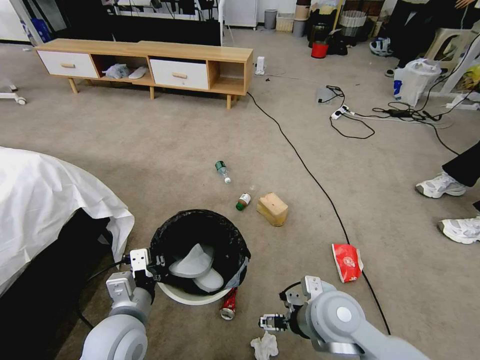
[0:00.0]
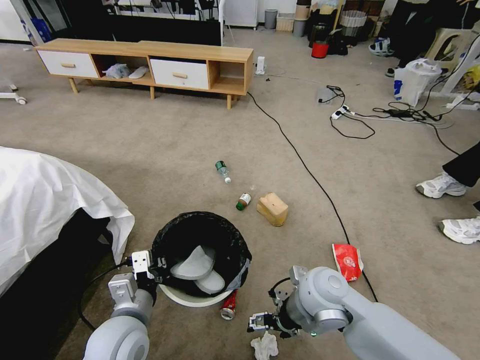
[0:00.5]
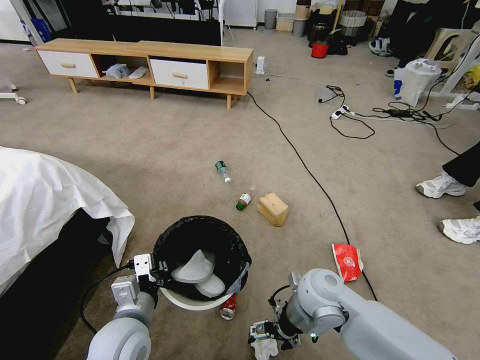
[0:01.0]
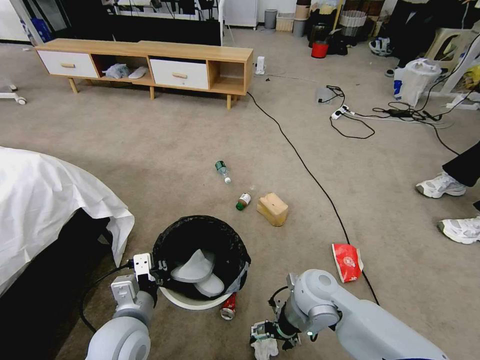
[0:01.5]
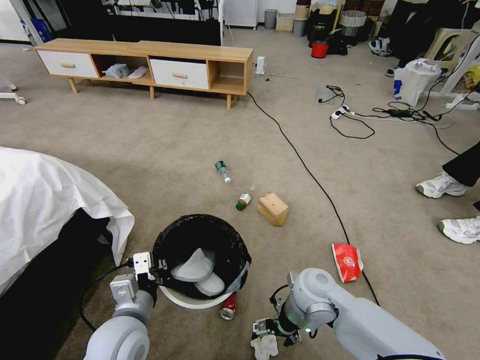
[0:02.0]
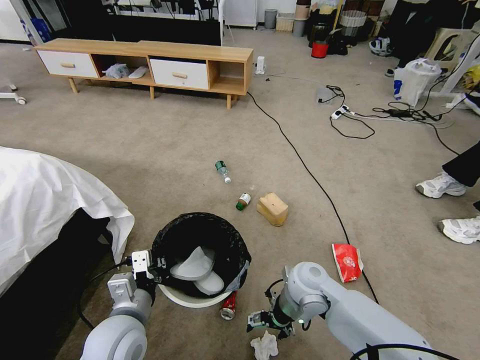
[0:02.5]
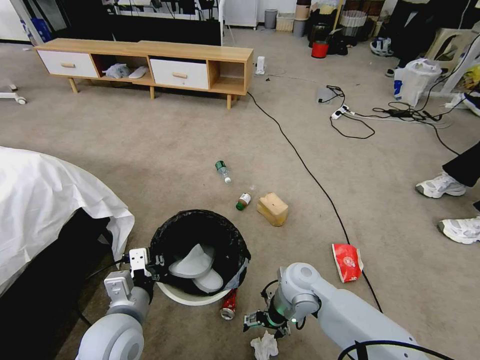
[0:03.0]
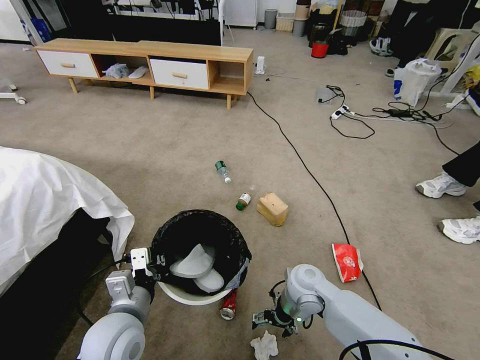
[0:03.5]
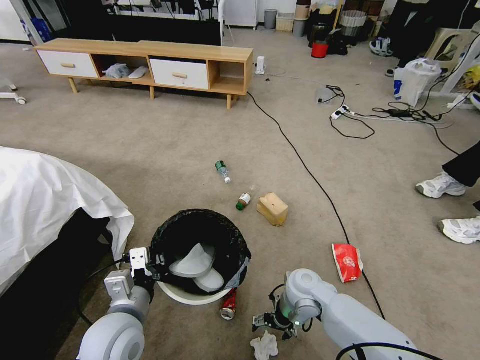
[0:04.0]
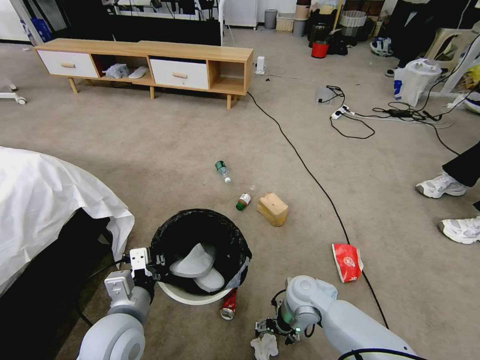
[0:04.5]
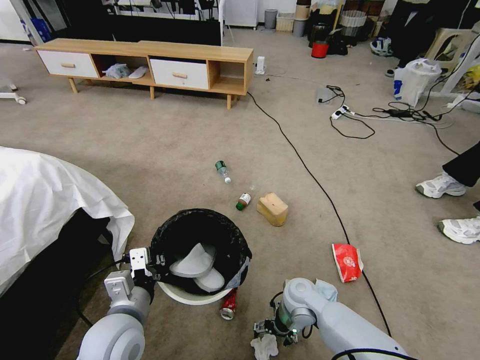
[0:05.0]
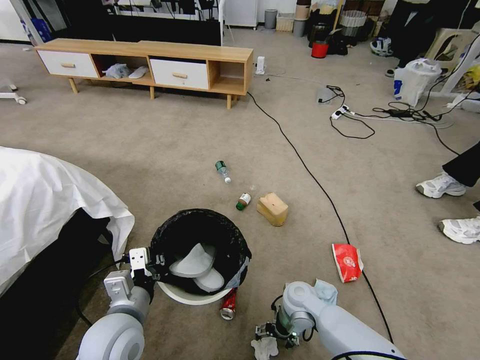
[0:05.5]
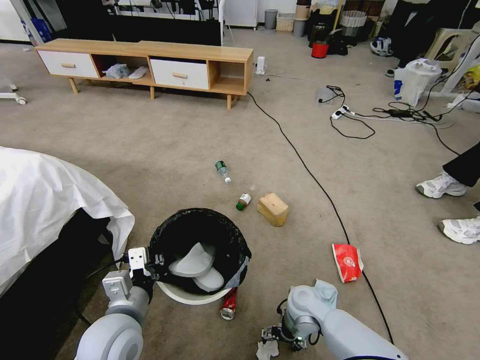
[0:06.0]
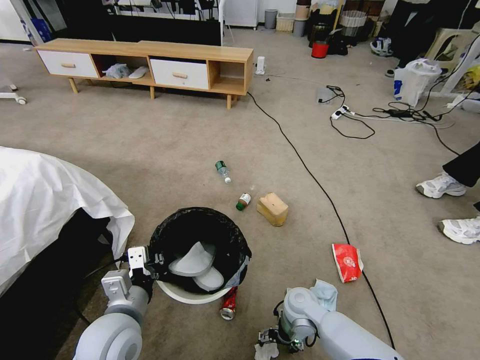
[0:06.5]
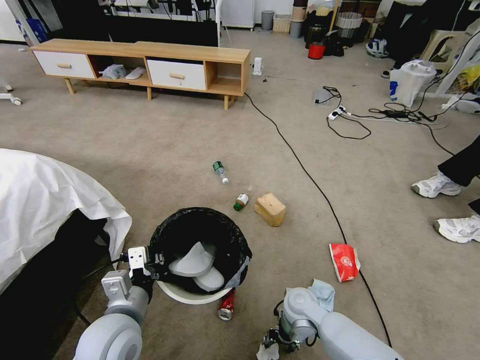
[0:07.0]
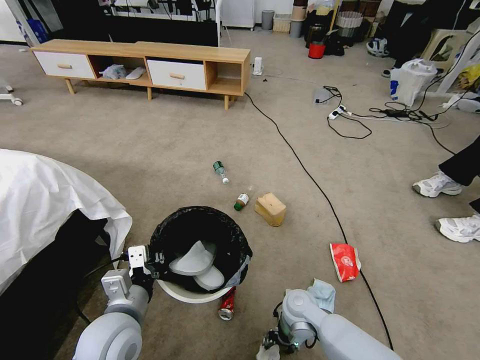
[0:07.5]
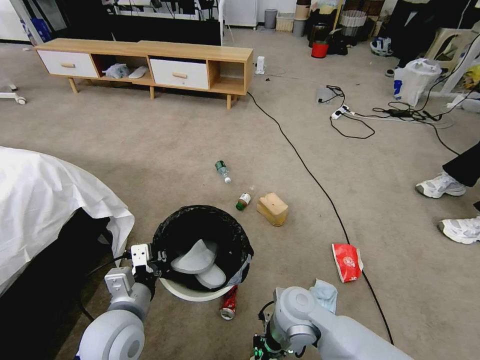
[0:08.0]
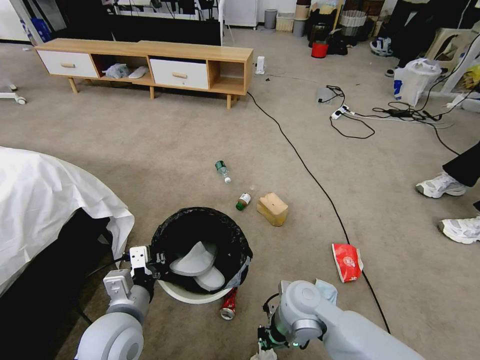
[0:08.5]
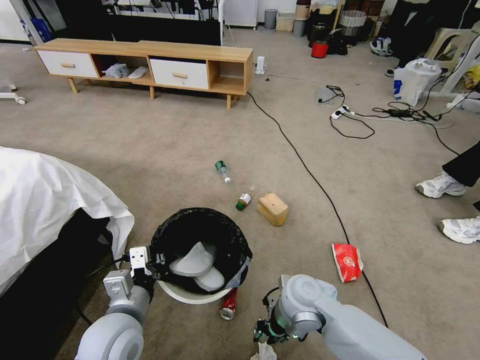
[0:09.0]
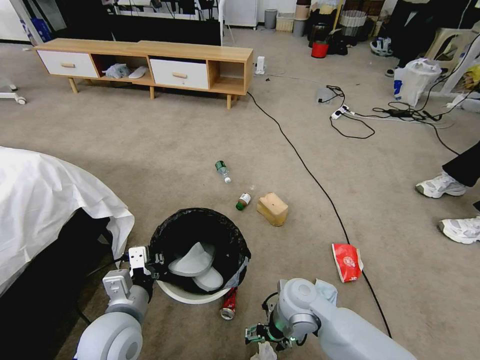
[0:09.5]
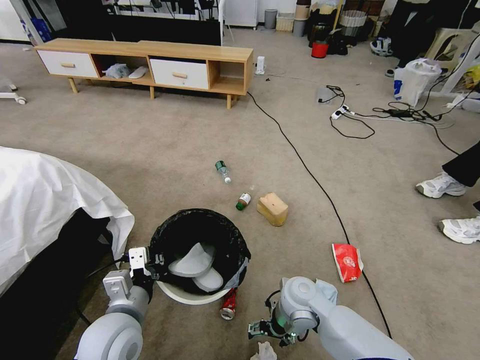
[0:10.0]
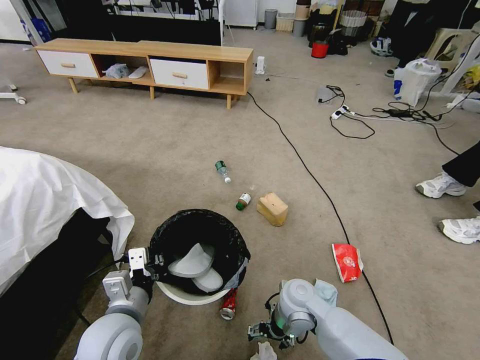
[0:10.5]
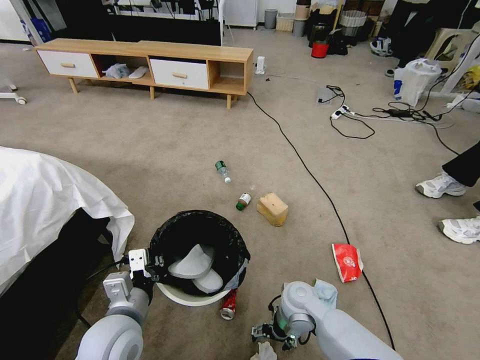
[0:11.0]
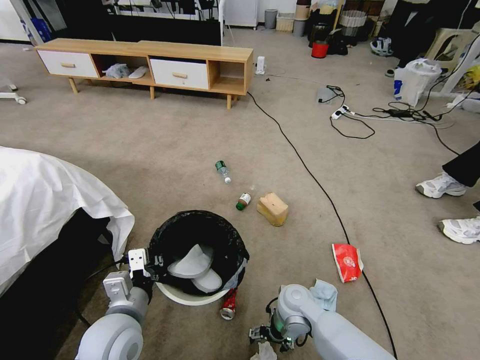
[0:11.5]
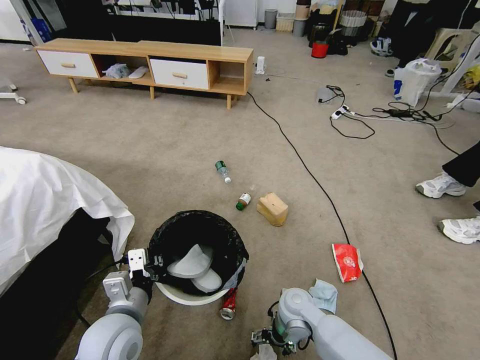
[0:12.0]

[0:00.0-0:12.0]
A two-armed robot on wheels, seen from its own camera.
Task of the whole recording: Pick up the trash bin and place the garbage on the floor into it.
0:00.0 to 0:02.0: The right gripper is displaced forward by some 5 cm.
0:02.0 to 0:04.0: The right gripper is displaced downward by about 5 cm.
0:04.0 to 0:06.0: The right gripper travels downward by about 5 cm.
0:06.0 to 0:08.0: The right gripper moves upward and to the left, roughly 10 cm, and closes its fingers.
0:08.0 to 0:10.0: The right gripper opens its fingers.
0:10.0 to 0:12.0: The right gripper heads downward, covering roughly 5 cm.

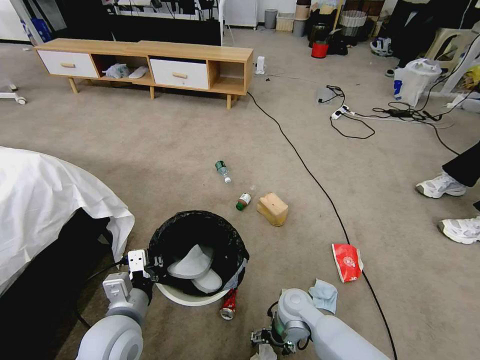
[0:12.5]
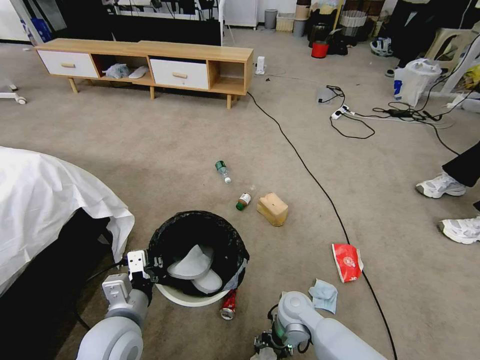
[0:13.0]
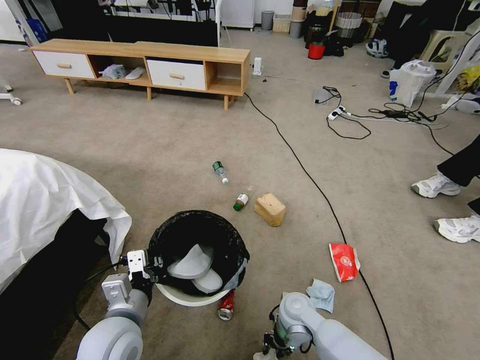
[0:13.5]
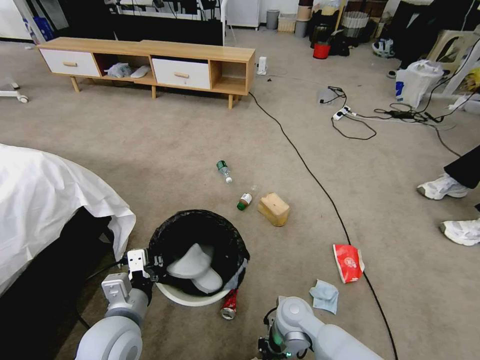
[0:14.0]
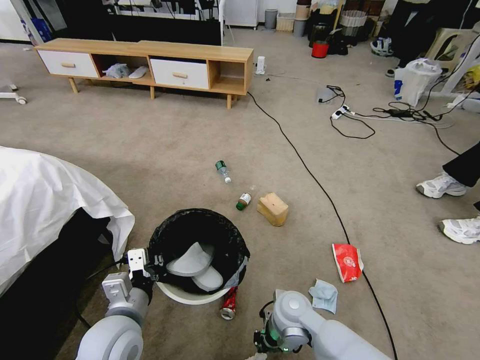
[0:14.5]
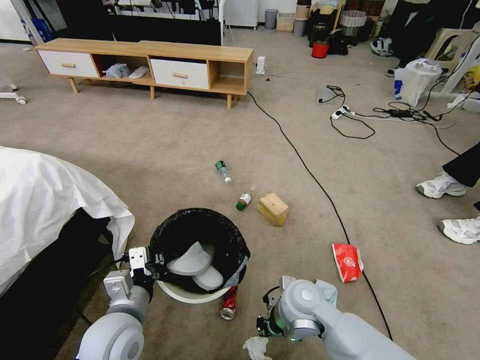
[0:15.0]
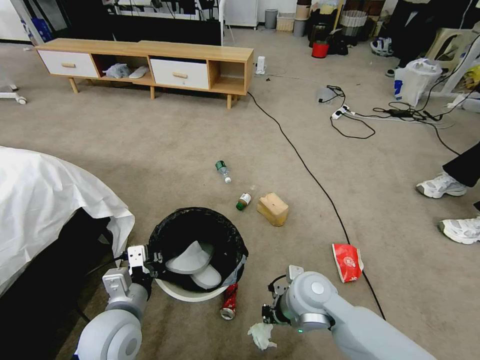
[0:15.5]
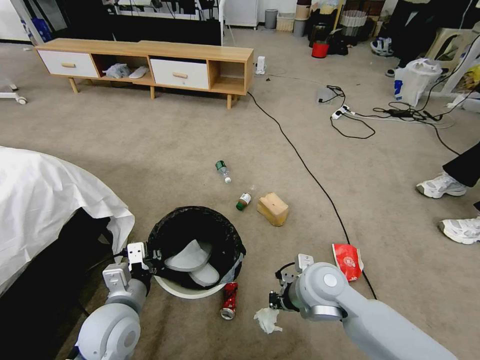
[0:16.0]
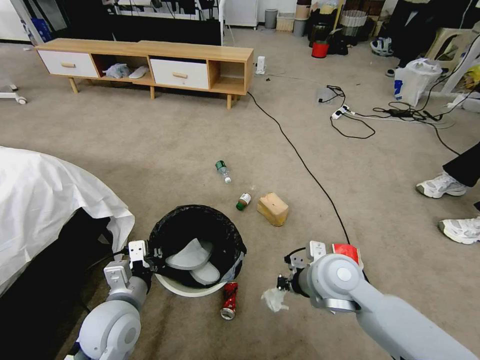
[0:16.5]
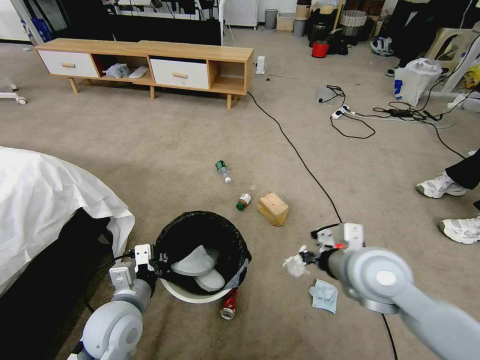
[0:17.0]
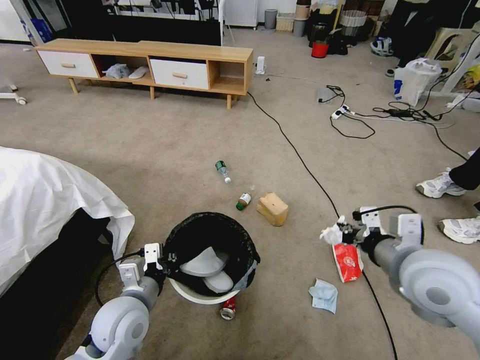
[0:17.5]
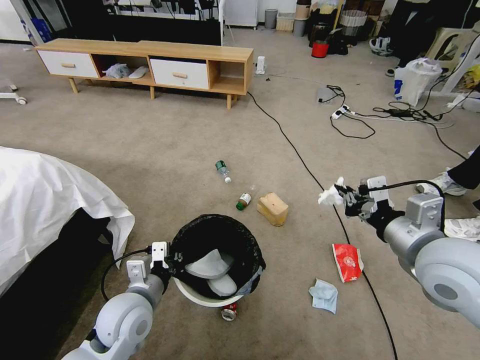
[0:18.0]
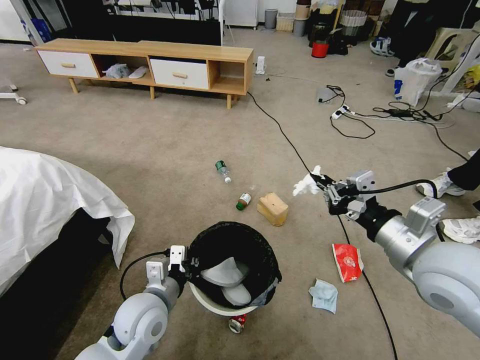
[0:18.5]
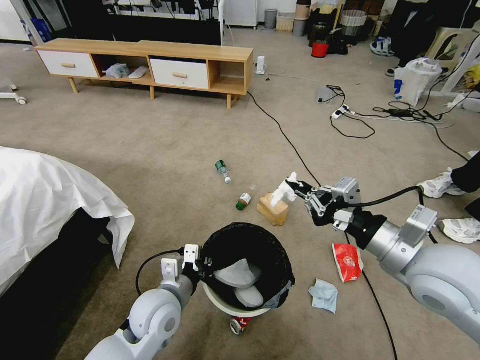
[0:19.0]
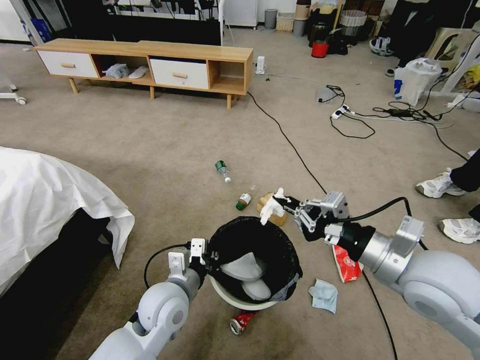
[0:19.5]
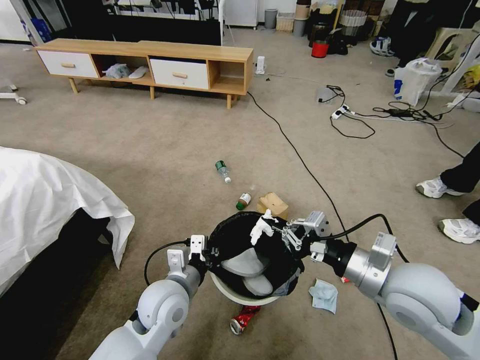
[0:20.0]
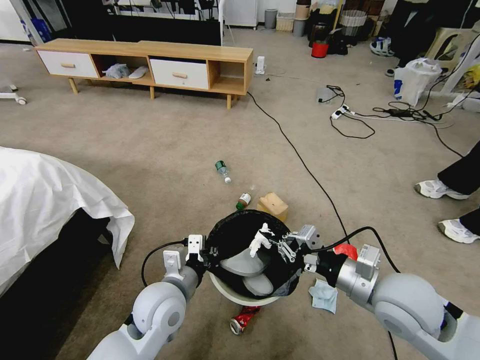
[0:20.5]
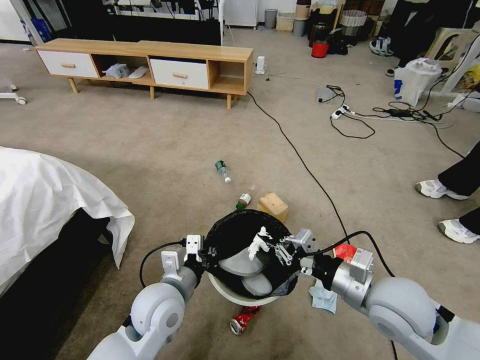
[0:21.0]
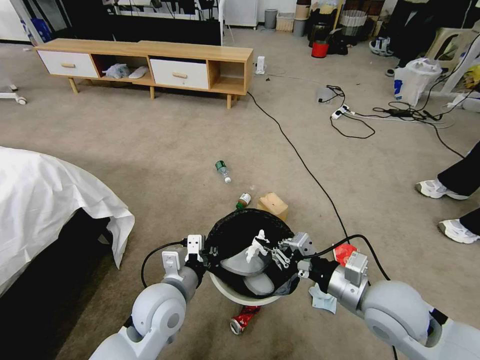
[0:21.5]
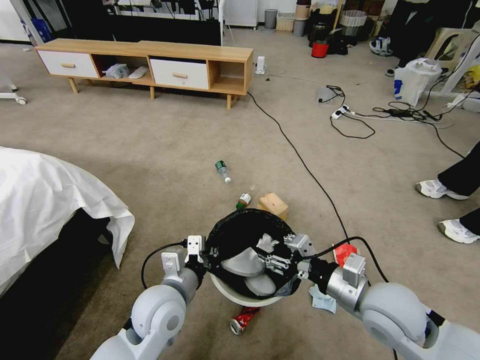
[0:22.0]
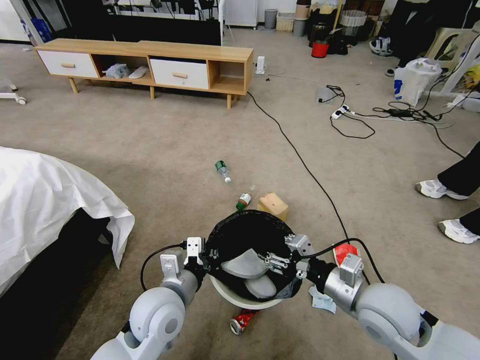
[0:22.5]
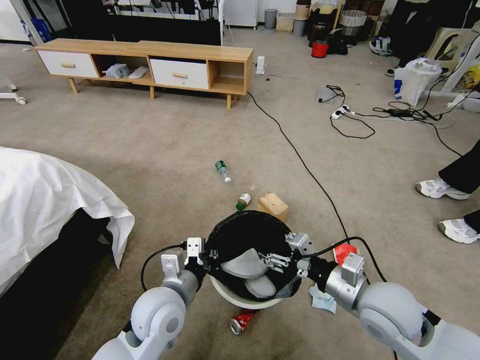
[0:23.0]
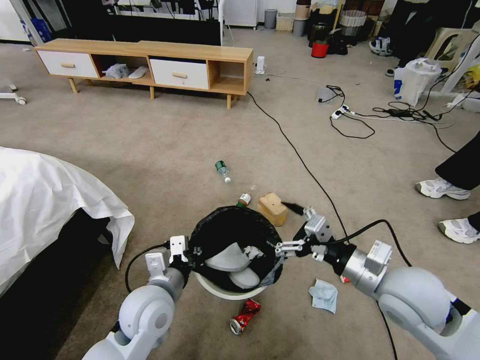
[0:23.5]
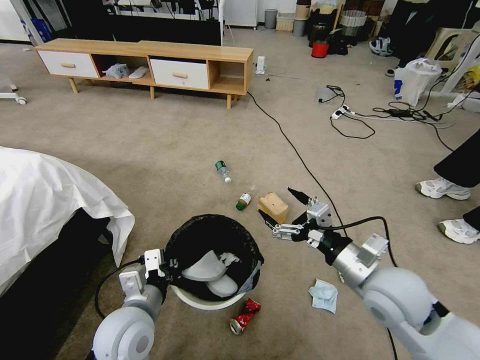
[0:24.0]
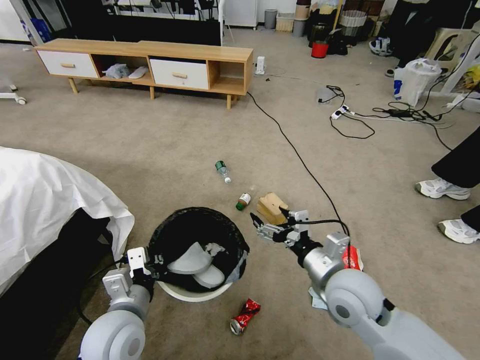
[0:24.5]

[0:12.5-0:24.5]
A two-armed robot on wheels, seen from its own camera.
Task of the whole recording: Pick up the trash bin and place the garbage on the floor into it.
0:12.5 to 0:14.5: The right gripper shifts by some 5 cm, and closes its fingers.
0:14.5 to 0:16.5: The left gripper closes its fingers. Meanwhile the right gripper shifts roughly 15 cm upward and to the right.
0:16.5 to 0:18.5: The right gripper is displaced upward, to the right and backward by roughly 15 cm; the left gripper shifts by approximately 5 cm.
0:18.5 to 0:20.5: The right gripper goes about 10 cm downward.
0:20.5 to 0:22.5: The right gripper opens.
0:22.5 to 0:24.5: The left gripper heads to the left, covering approximately 5 cm. Meanwhile the right gripper shifts by some 5 cm, and opens its fingers.

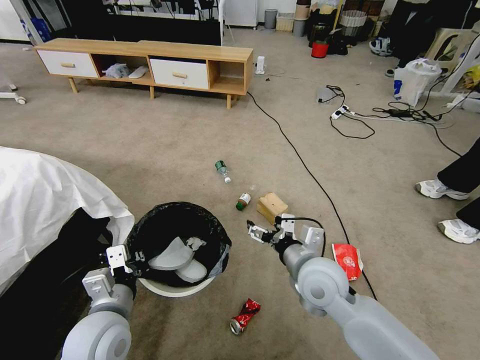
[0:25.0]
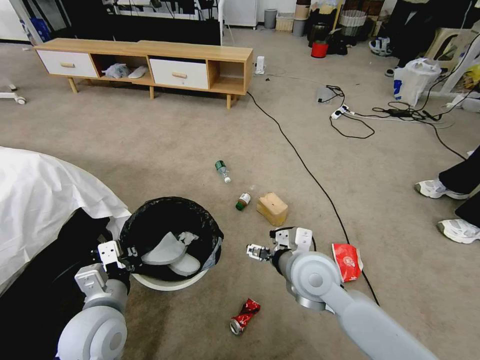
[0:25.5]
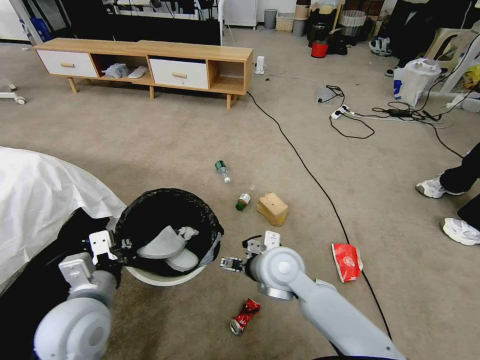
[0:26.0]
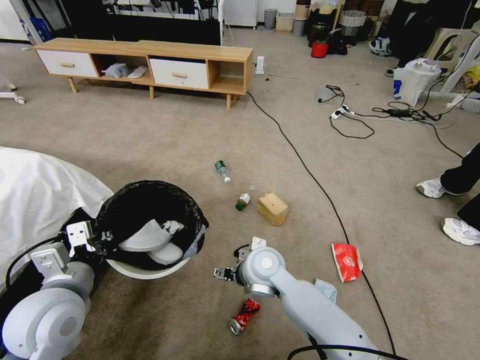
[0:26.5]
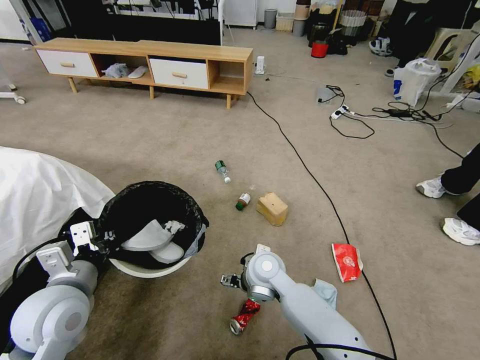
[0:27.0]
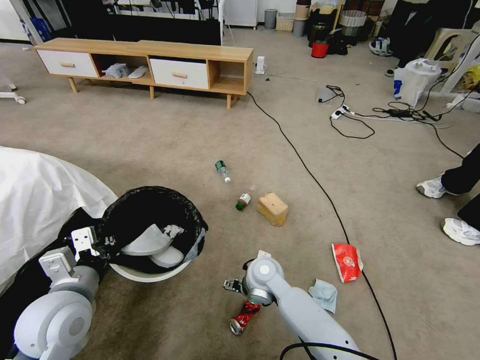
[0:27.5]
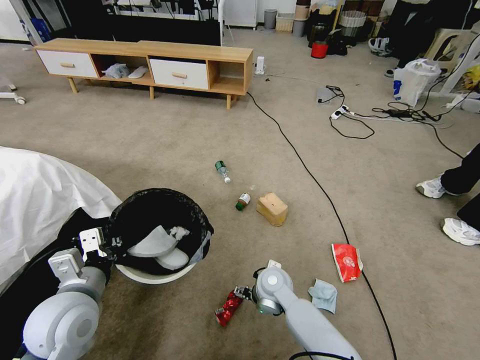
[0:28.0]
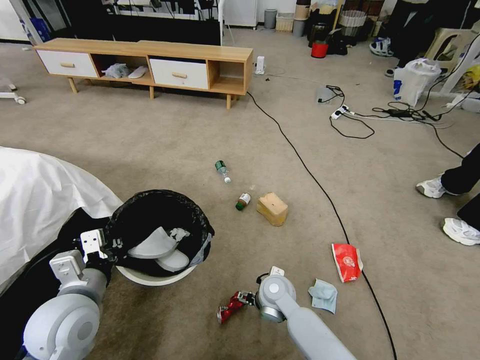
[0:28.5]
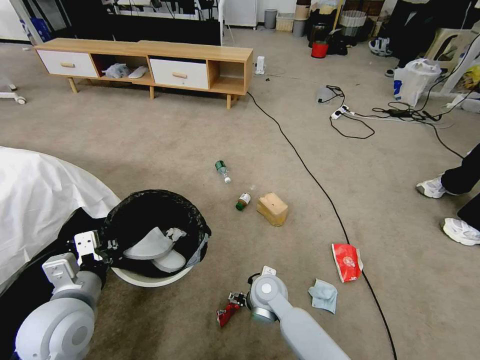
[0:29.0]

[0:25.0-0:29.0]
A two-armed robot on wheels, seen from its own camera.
Task of the whole recording: Pick up the trash bin and place the garbage on the floor into it.
0:25.0 to 0:27.0: The right gripper shifts some 15 cm to the left, downward and forward. The left gripper moves to the left and upward, some 10 cm.
0:27.0 to 0:29.0: The right gripper heads downward, covering about 5 cm.
